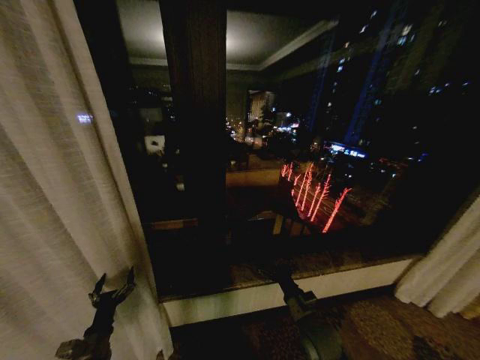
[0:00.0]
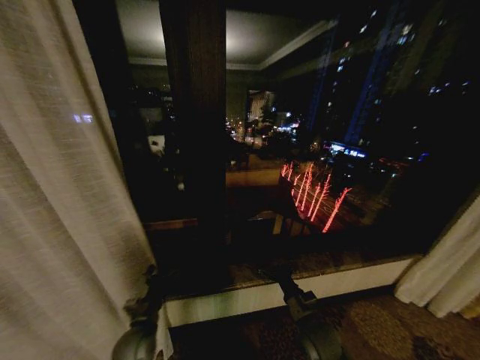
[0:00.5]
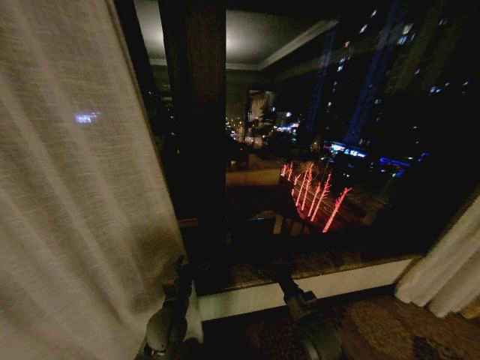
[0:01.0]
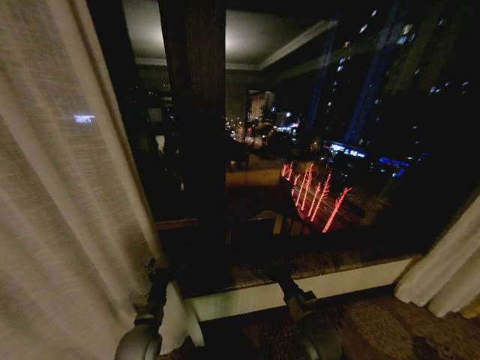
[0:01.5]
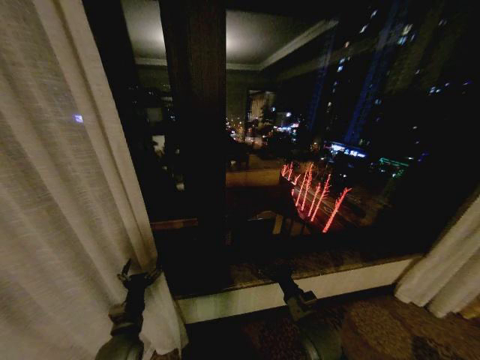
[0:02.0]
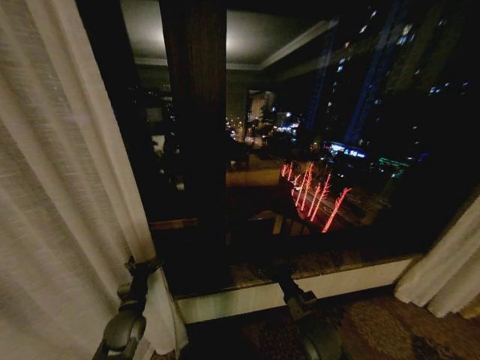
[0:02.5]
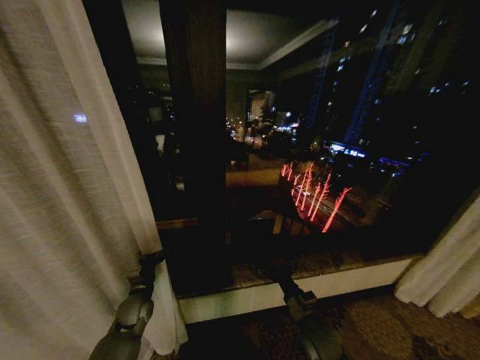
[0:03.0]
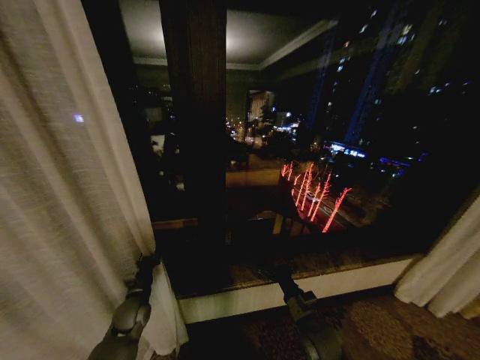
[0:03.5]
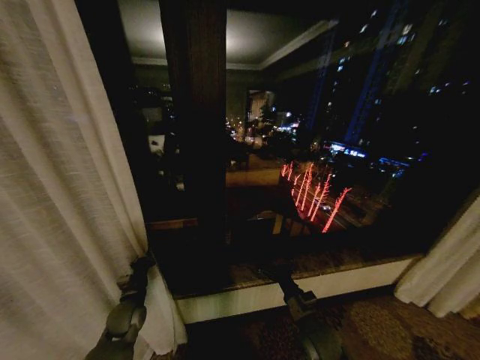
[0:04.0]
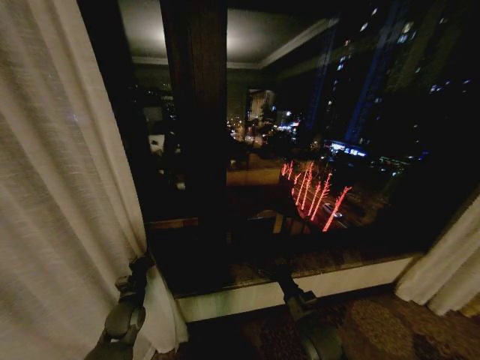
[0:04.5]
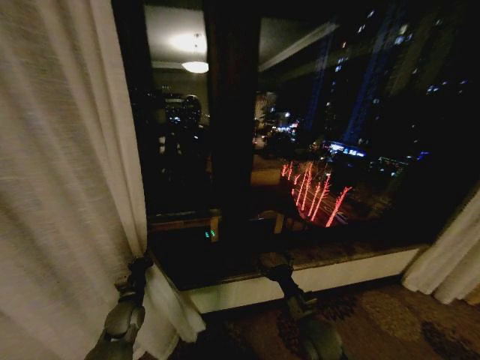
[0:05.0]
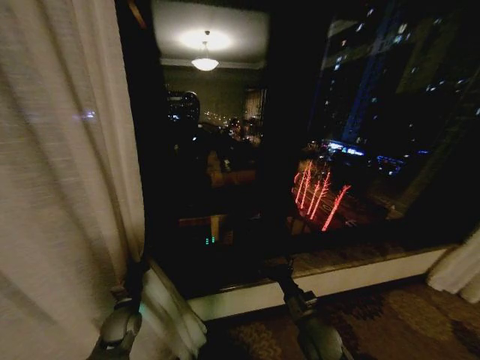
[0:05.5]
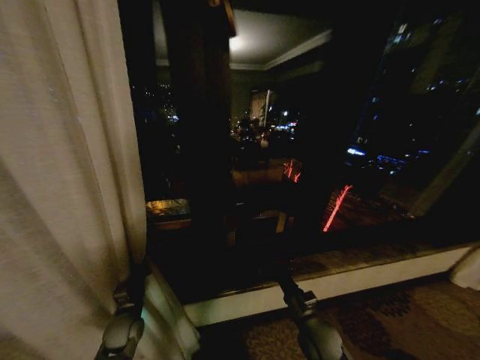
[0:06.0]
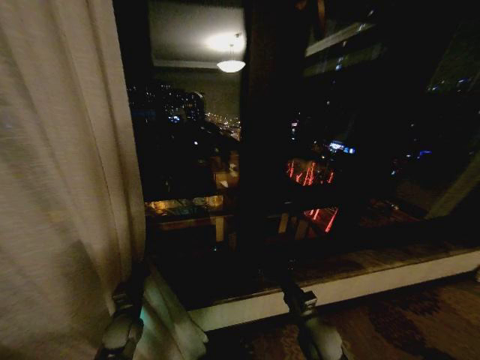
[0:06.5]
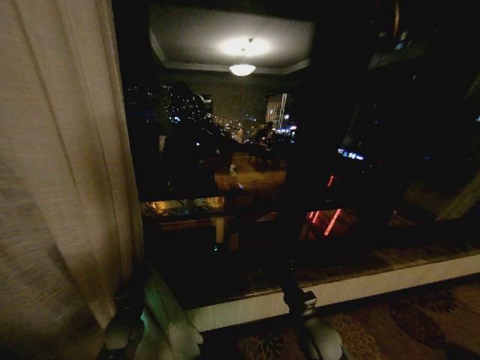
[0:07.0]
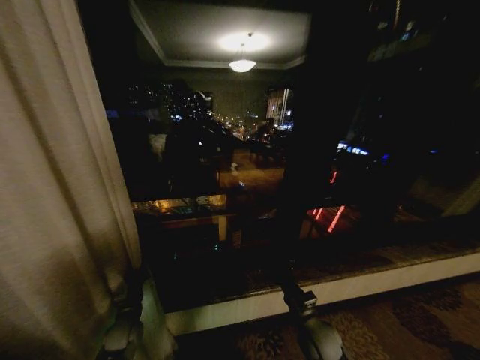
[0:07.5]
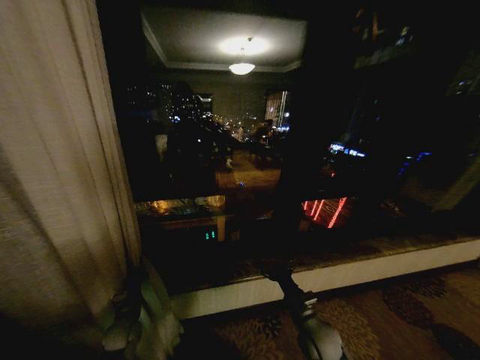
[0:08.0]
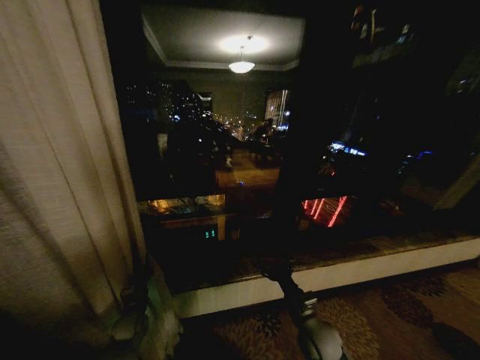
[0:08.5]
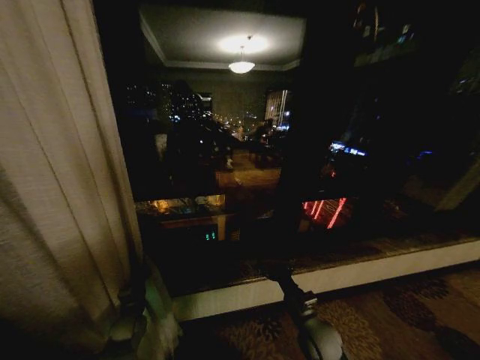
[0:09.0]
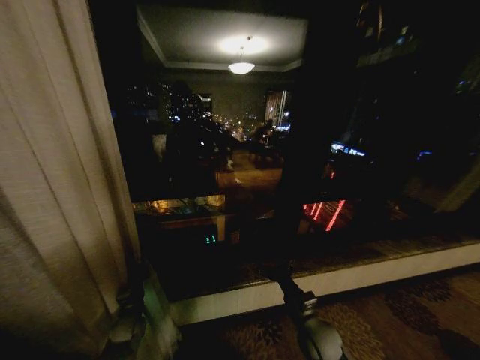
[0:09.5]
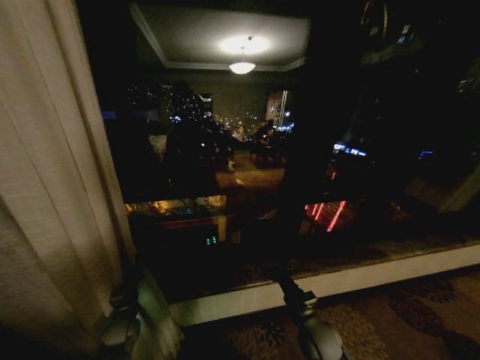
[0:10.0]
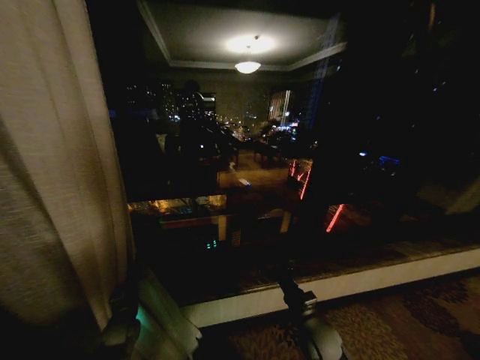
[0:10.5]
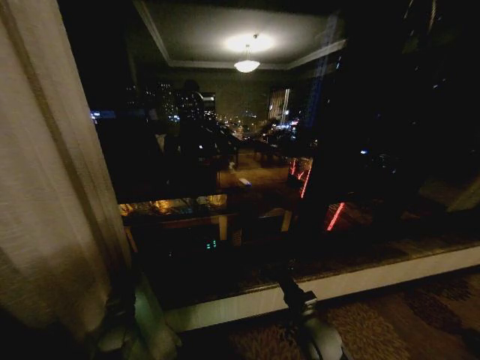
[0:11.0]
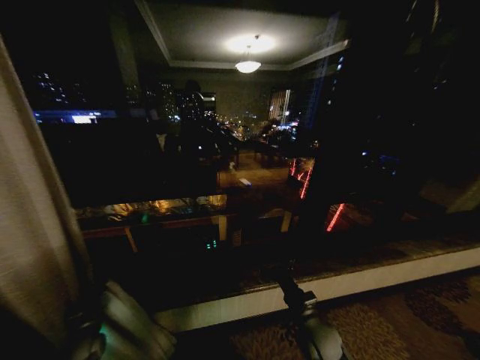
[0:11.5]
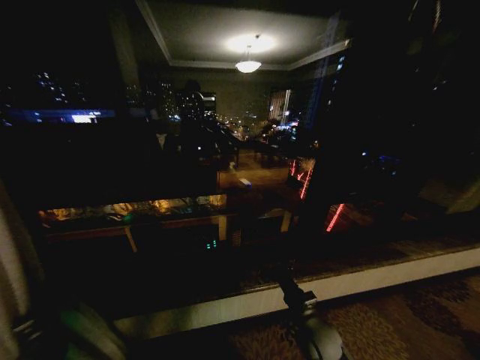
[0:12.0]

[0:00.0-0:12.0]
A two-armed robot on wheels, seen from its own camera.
Task of the whole recording: Open the curtains by pulling them apart, changing their state from closed to fully open.
0:00.0 to 0:02.0: The left gripper travels to the right by some 10 cm.
0:02.0 to 0:04.0: The left gripper is displaced forward by roughly 10 cm, and closes up.
0:08.0 to 0:10.0: The grippers stay close to where they were, moving slightly.
0:10.0 to 0:12.0: The left gripper shifts roughly 20 cm to the left.

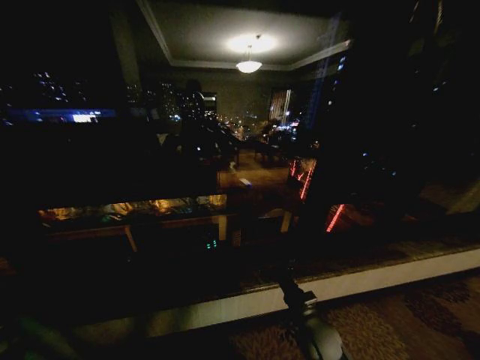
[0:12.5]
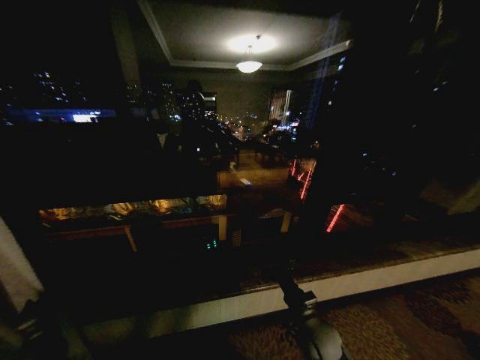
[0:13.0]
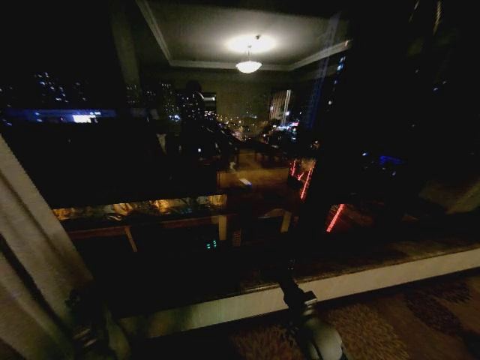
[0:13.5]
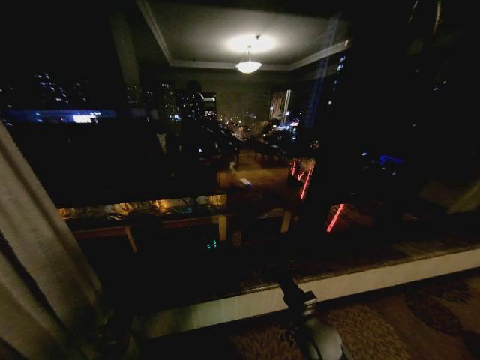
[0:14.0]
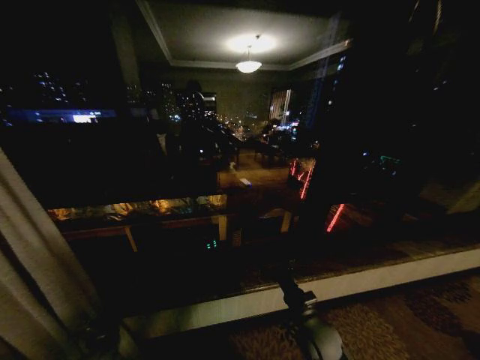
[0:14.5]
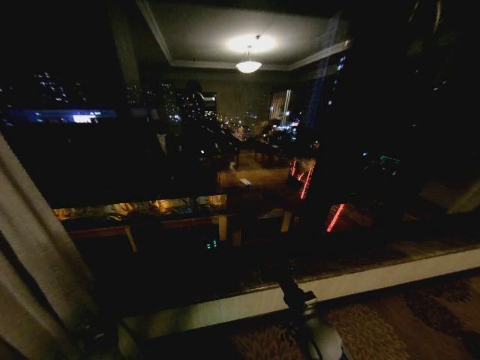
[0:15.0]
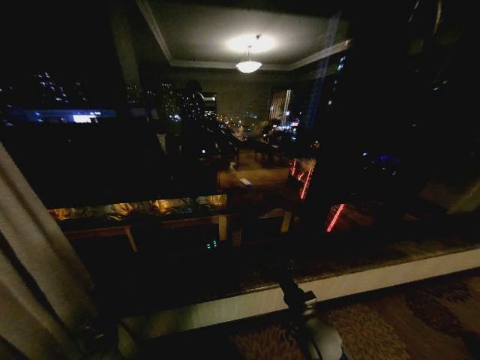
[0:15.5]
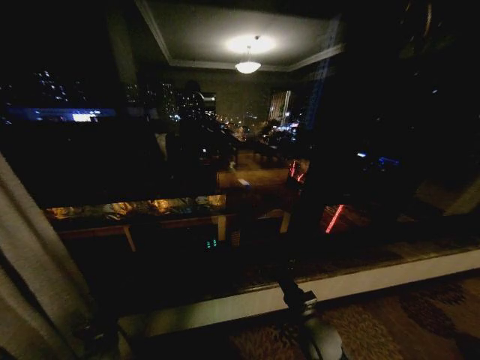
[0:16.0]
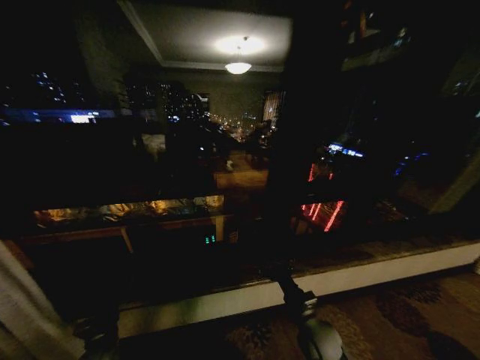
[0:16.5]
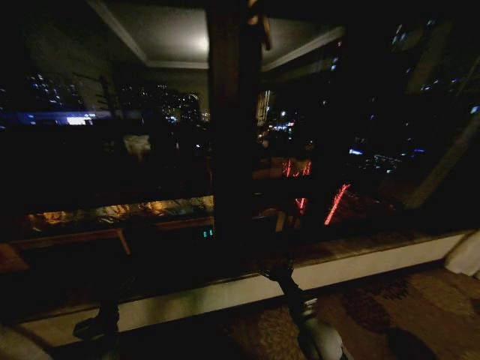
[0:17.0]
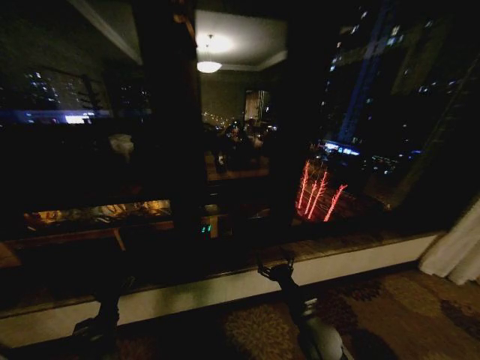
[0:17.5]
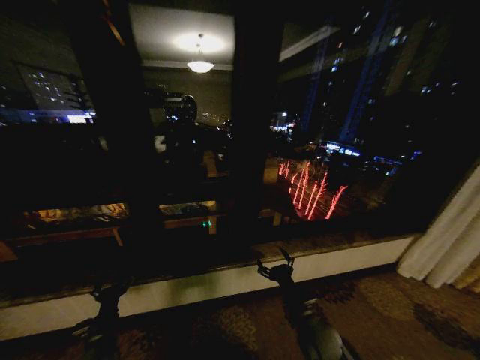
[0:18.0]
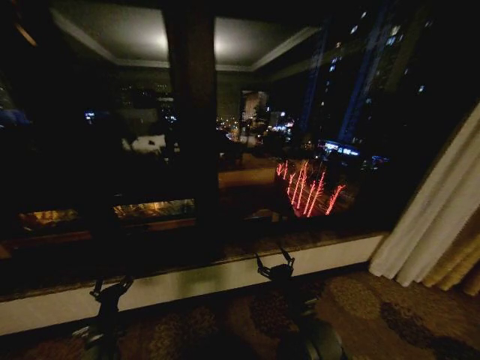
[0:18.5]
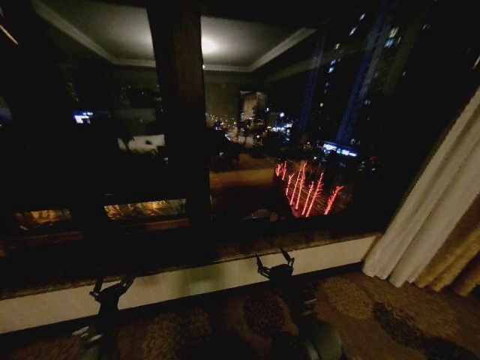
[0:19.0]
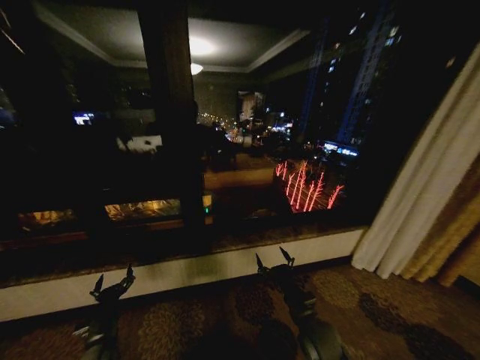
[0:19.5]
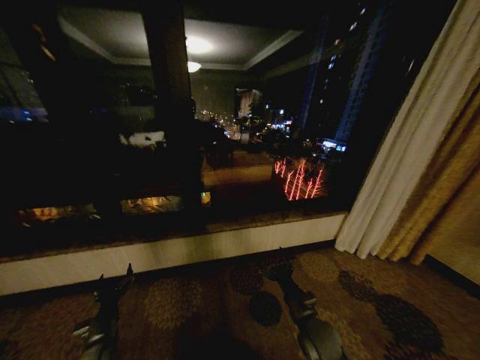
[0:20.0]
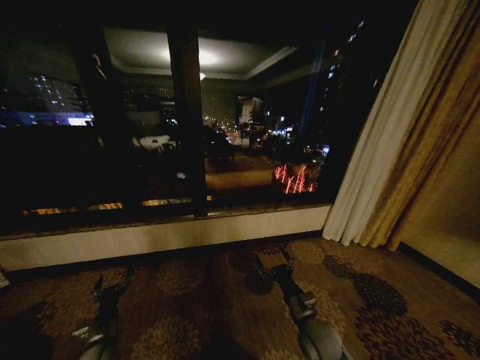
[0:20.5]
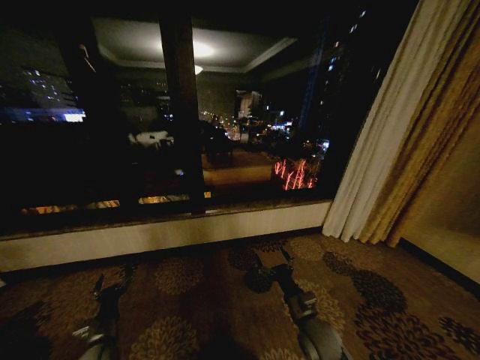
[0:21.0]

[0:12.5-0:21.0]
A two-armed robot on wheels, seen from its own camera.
Task of the whole recording: Open the curtains by pulling them apart, changing their state from closed to fully open.
0:12.5 to 0:14.5: The left gripper shifts approximately 30 cm to the right, and opens.
0:14.5 to 0:16.5: The grippers move only a little.
